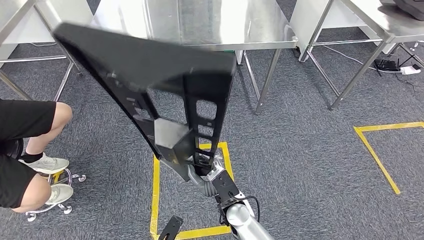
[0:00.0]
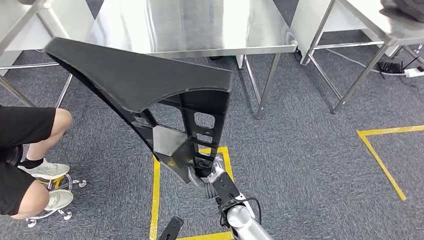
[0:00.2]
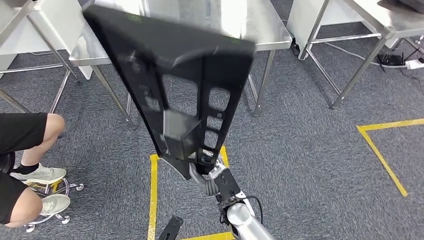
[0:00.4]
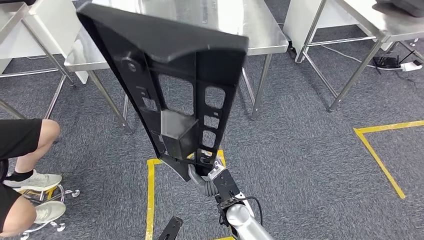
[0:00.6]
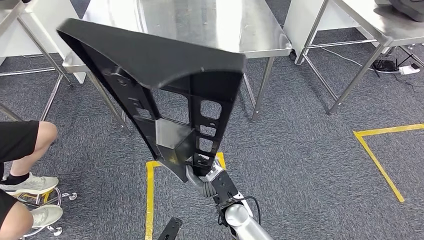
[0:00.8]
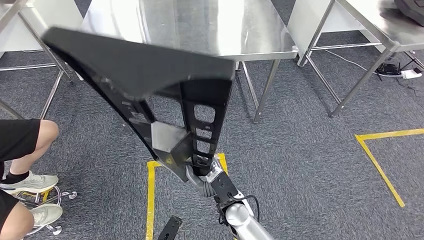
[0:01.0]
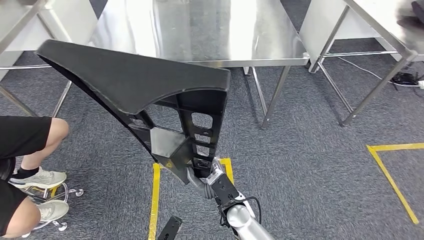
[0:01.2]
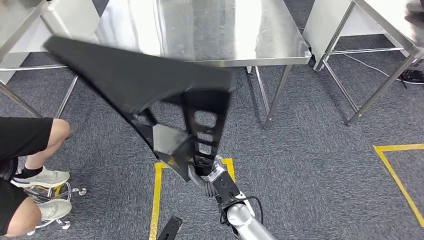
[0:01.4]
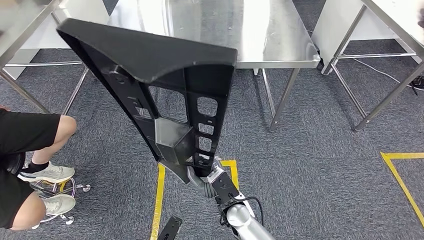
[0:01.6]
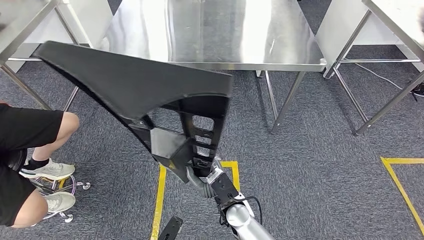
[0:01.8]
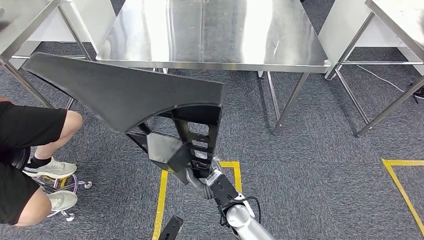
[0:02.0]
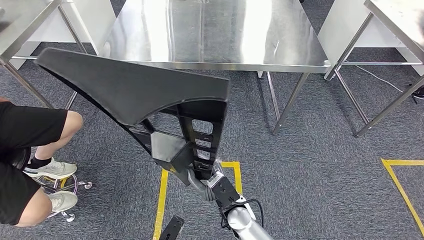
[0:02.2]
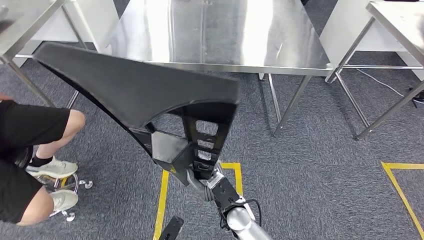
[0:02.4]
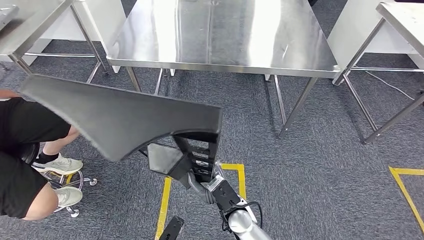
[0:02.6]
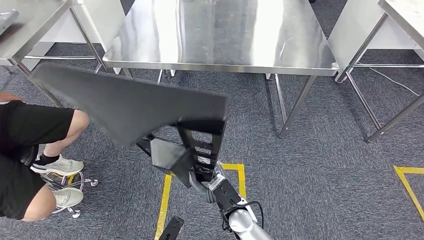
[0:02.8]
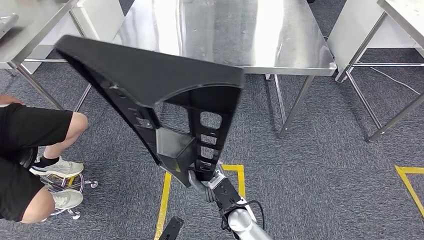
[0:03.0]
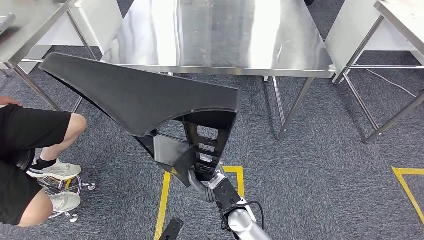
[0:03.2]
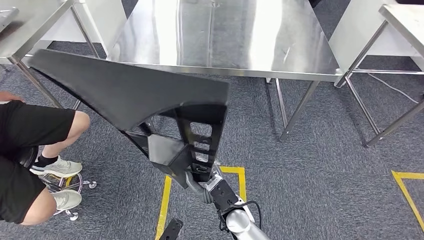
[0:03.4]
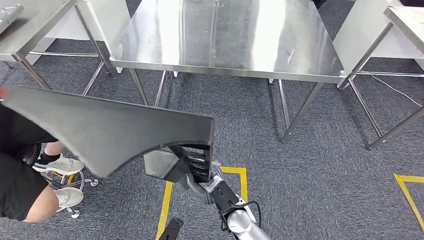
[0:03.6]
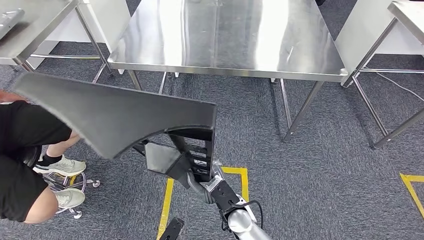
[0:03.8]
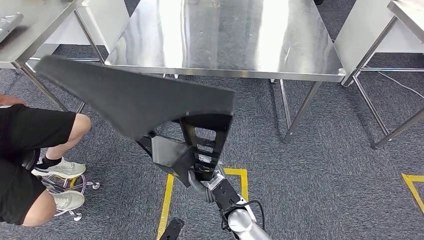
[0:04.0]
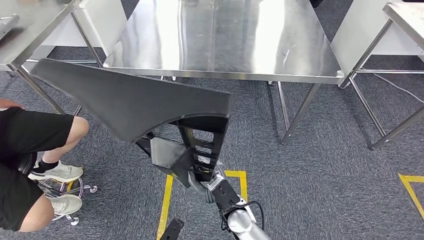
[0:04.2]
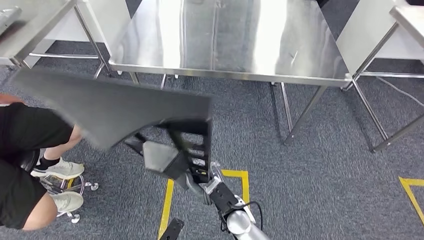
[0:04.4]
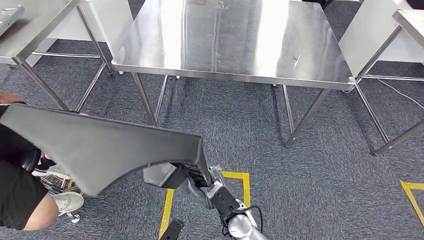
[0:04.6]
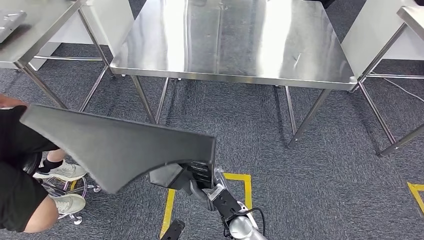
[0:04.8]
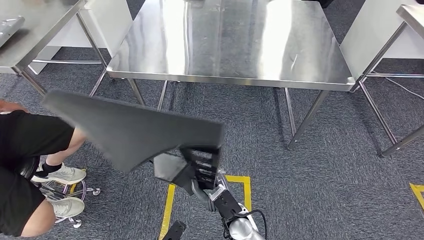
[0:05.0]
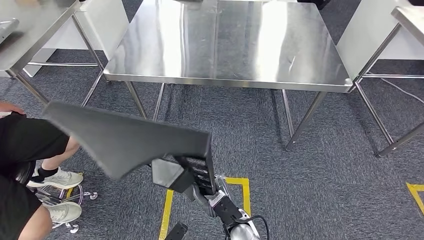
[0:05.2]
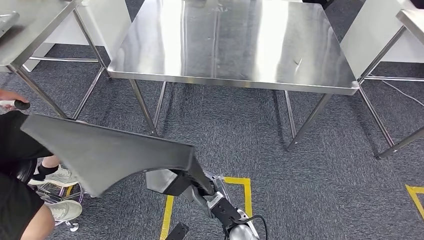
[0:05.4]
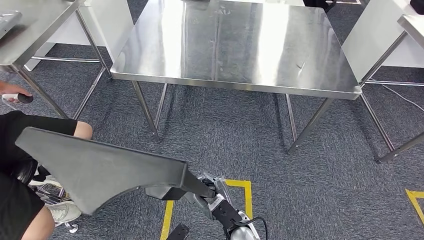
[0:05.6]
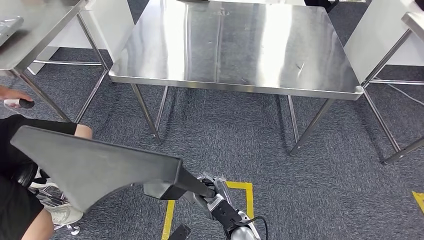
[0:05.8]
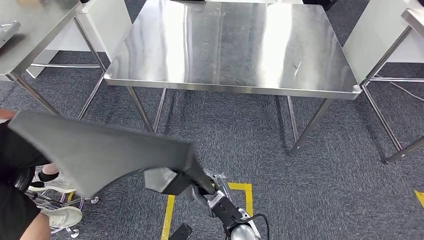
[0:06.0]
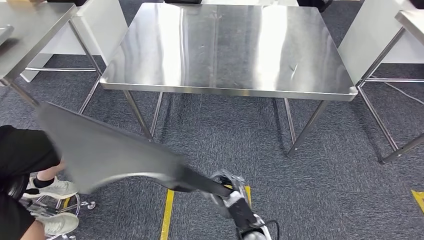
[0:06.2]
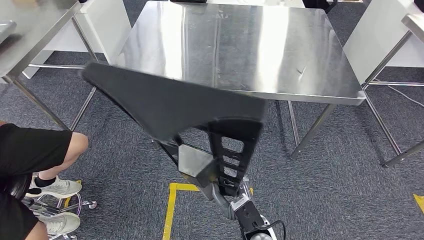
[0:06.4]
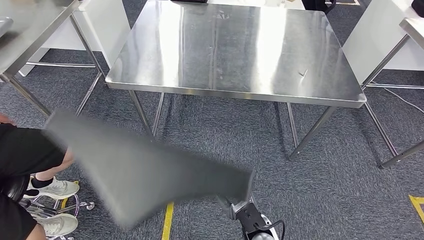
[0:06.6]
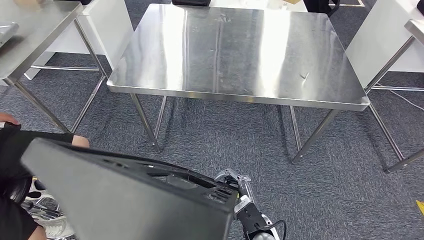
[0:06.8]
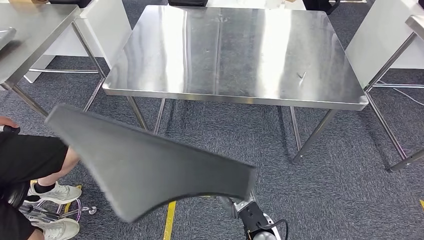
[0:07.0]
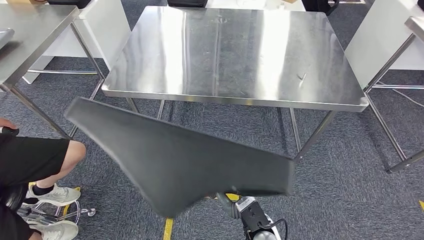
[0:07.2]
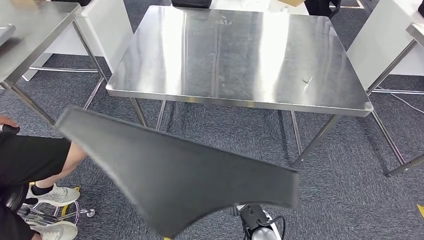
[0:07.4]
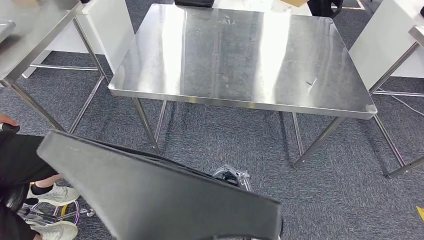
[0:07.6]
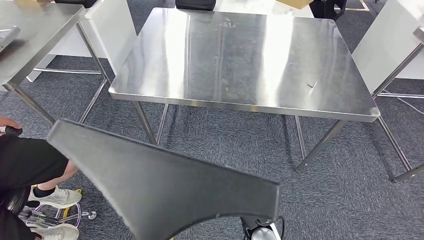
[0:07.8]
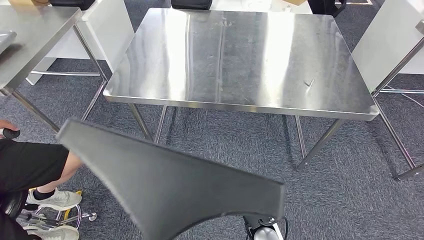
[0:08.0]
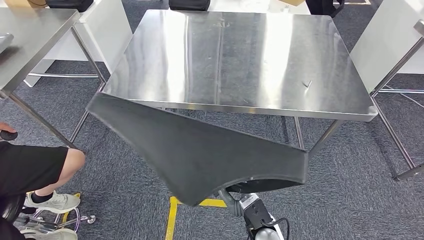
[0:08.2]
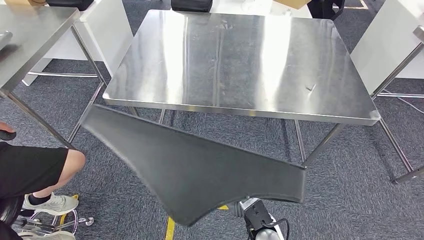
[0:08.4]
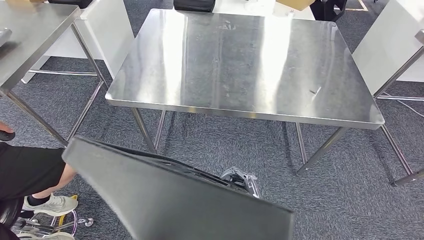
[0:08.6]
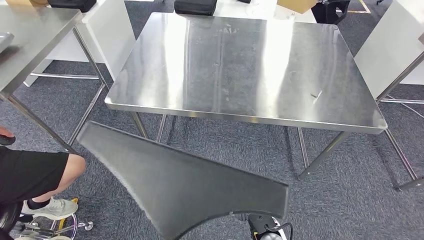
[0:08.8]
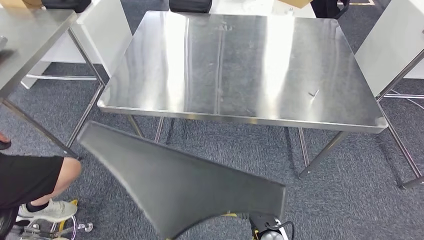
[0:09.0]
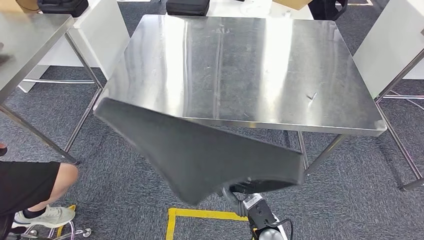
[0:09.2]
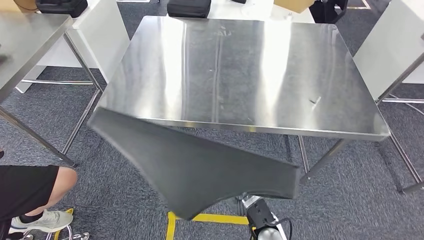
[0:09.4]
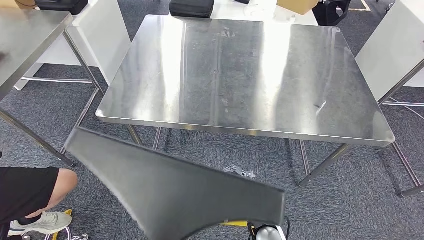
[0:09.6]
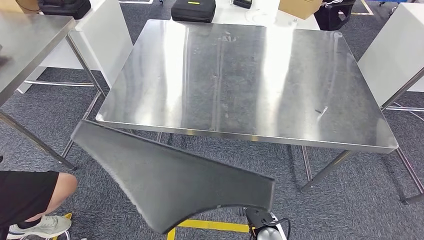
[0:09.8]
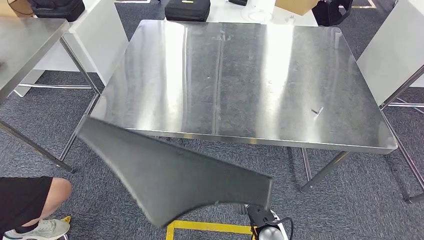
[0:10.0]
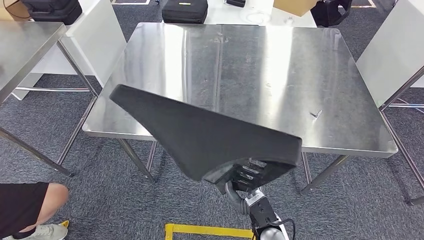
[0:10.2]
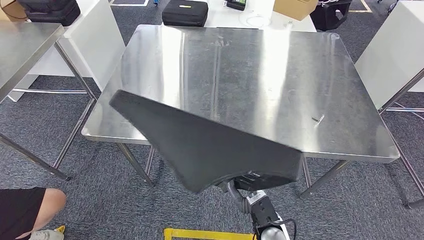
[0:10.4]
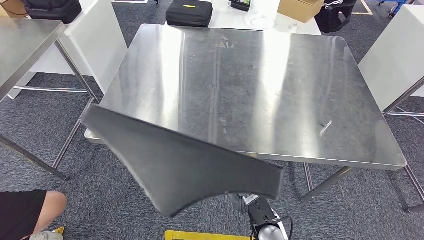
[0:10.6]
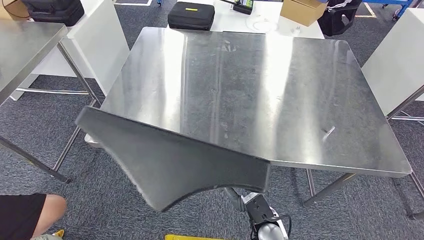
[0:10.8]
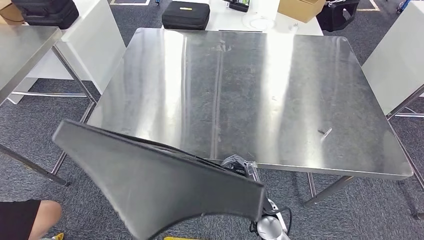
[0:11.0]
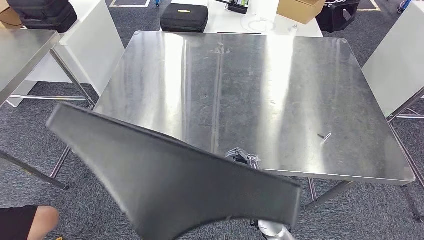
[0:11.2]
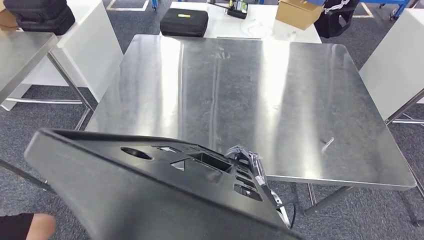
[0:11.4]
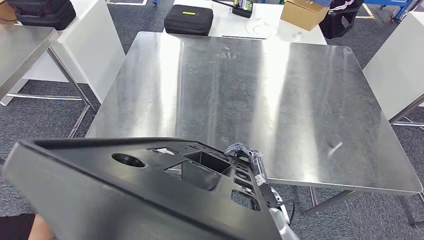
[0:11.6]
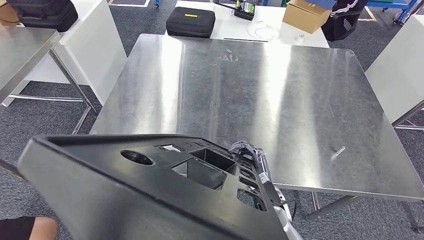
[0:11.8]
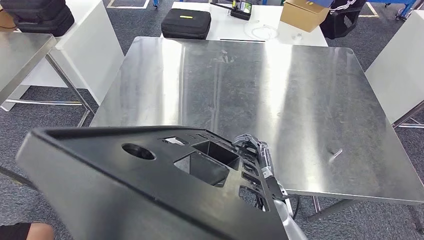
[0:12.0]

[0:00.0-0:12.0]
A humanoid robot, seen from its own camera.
Step, 0:00.0 to 0:11.6: Move the large material to the workbench.

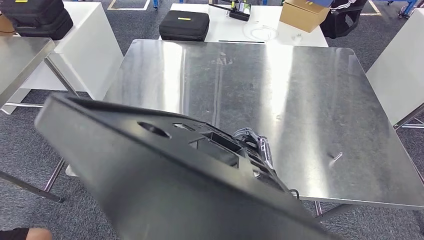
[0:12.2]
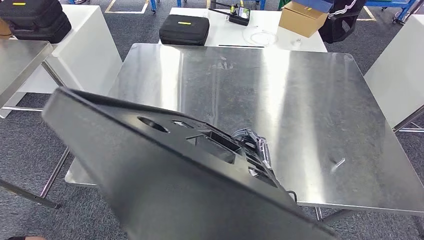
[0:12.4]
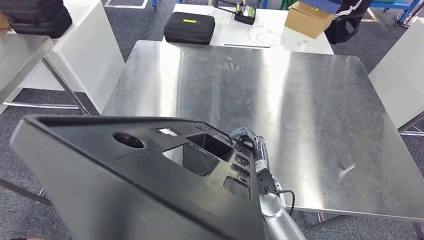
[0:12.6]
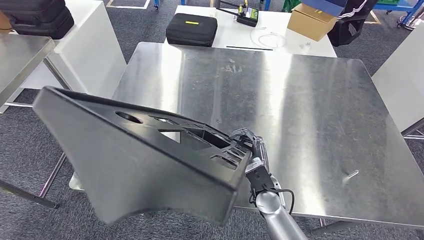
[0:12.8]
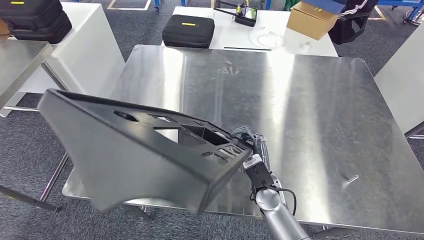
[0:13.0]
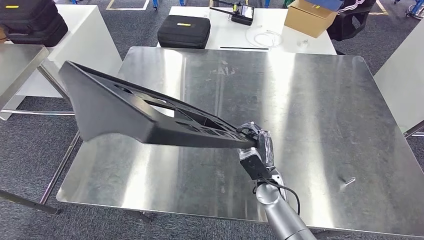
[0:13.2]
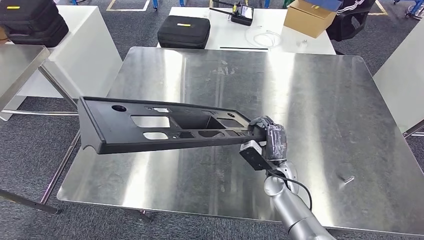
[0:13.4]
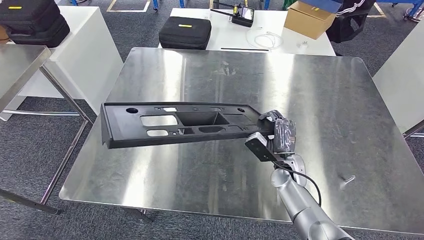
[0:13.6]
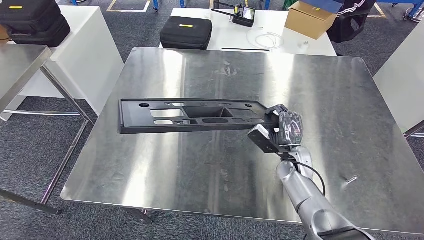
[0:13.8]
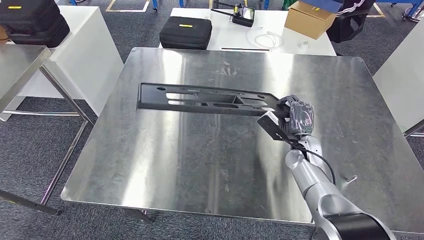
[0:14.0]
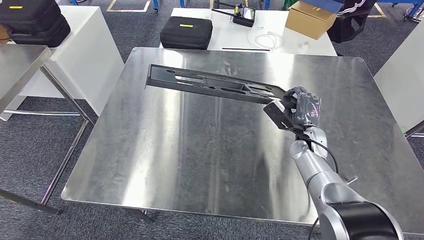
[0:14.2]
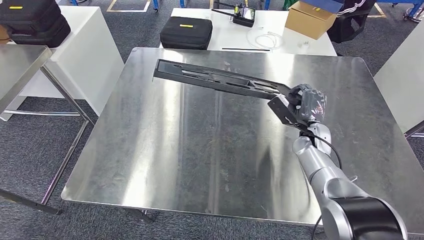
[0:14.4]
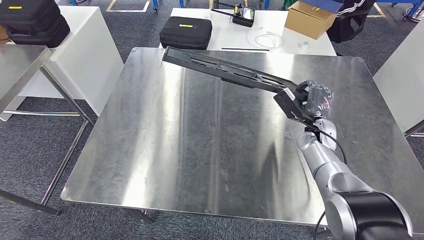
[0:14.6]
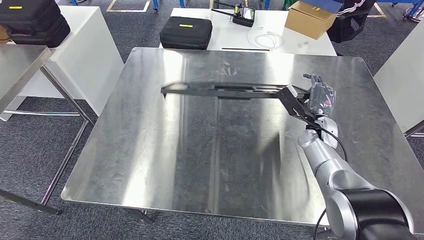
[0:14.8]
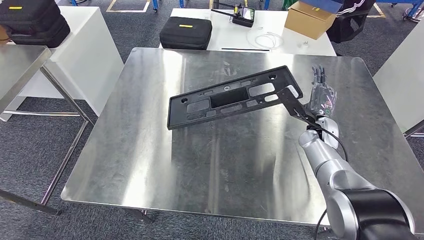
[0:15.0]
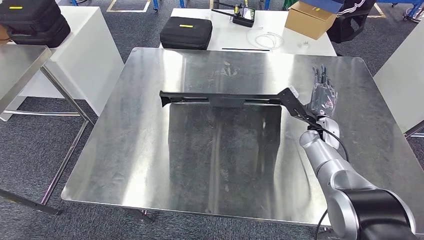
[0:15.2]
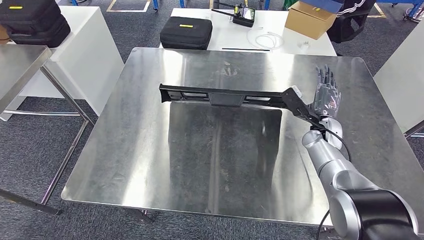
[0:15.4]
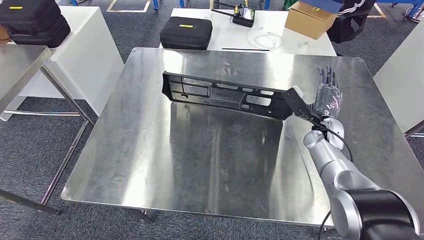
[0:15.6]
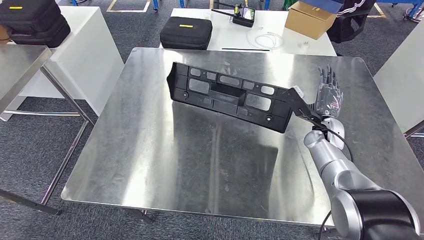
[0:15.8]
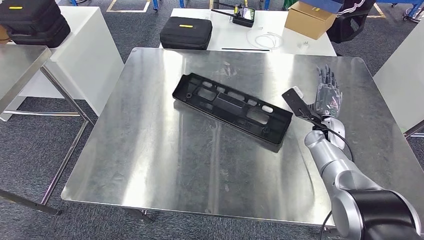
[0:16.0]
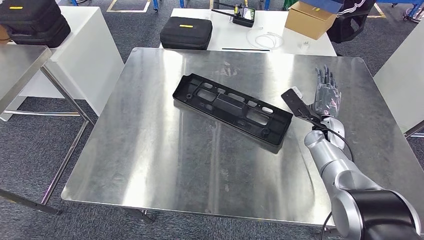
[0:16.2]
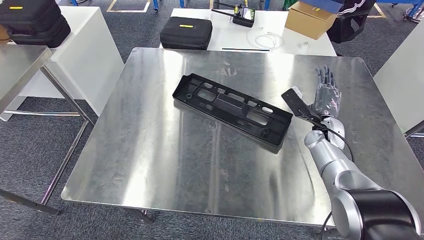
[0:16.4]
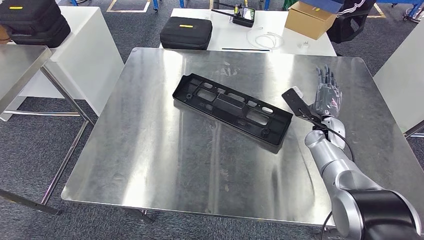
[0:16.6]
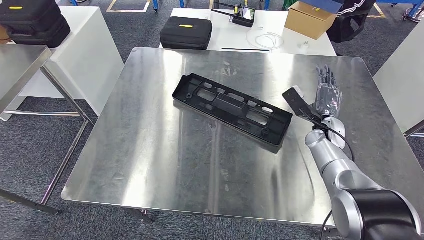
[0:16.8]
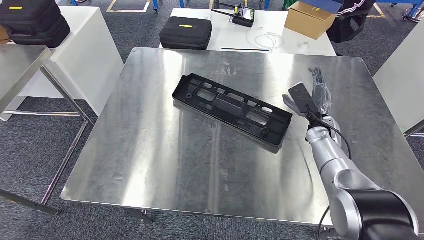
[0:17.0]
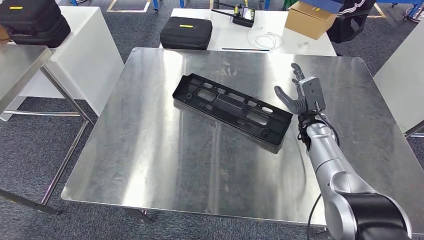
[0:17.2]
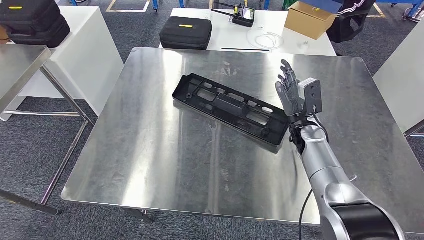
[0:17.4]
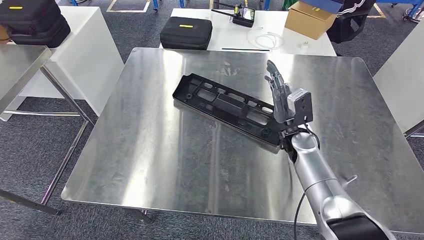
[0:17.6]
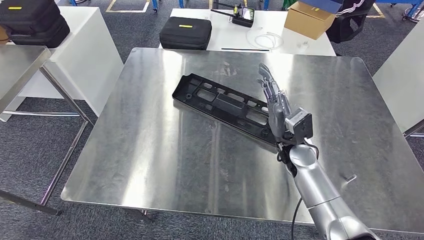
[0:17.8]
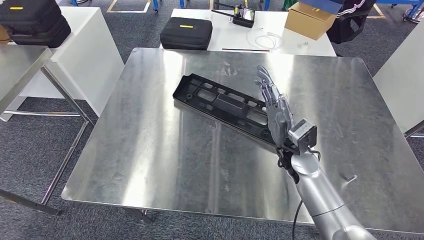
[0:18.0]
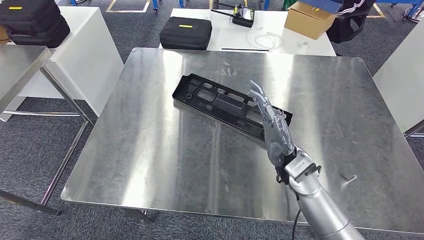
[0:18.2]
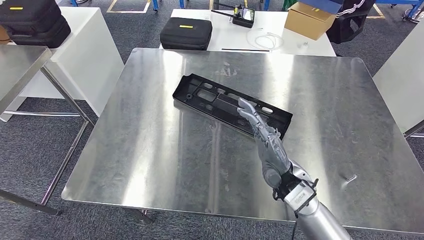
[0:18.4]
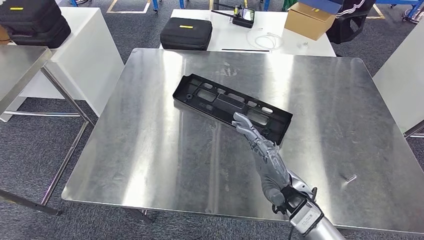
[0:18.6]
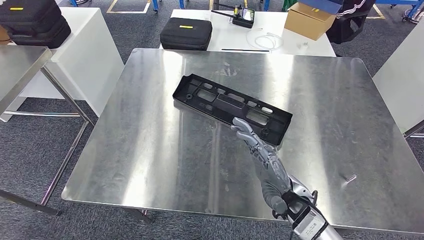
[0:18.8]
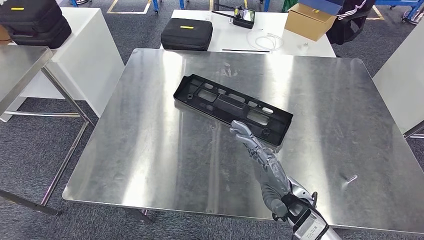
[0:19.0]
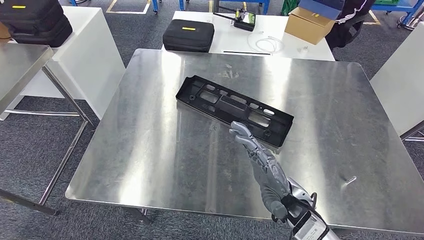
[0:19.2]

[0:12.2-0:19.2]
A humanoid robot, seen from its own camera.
Step, 0:12.2 to 0:17.8: Insert the large material into the corresponding slot on the workbench.
0:13.6 to 0:15.0: The right hand is displaced to the right, forward and upward by roughly 15 cm.
0:15.0 to 0:16.4: The hands make only small movements.
0:16.4 to 0:17.8: The right hand moves to the left and backward, about 15 cm.
0:17.8 to 0:19.2: The right hand goes roughly 15 cm backward.
